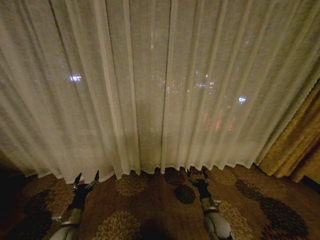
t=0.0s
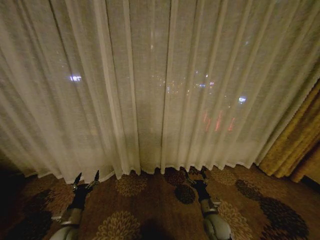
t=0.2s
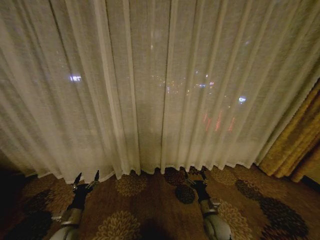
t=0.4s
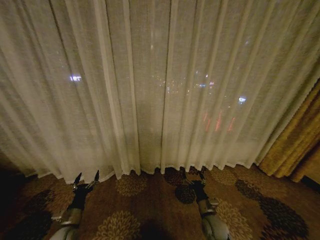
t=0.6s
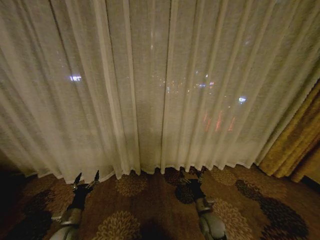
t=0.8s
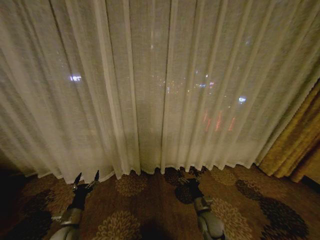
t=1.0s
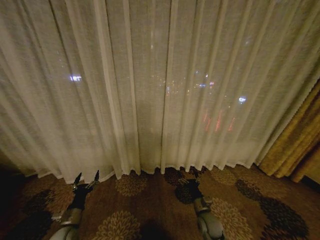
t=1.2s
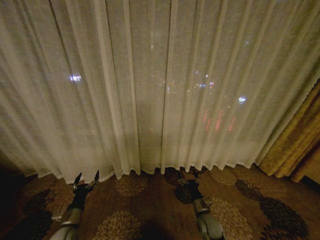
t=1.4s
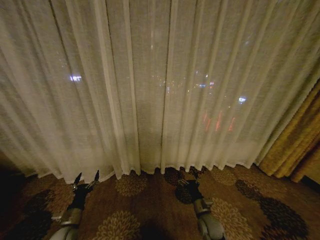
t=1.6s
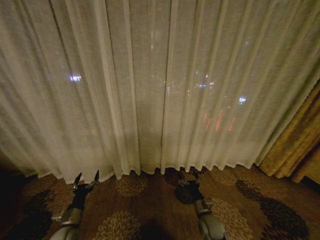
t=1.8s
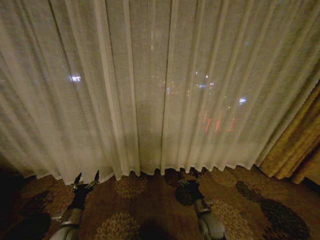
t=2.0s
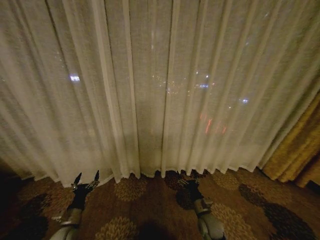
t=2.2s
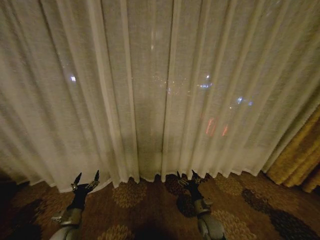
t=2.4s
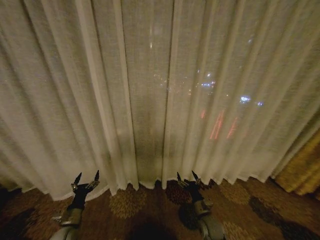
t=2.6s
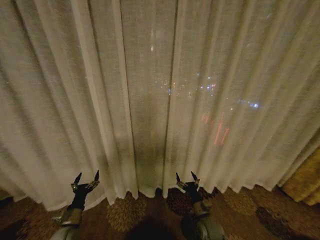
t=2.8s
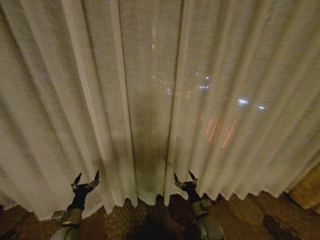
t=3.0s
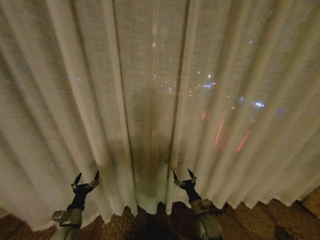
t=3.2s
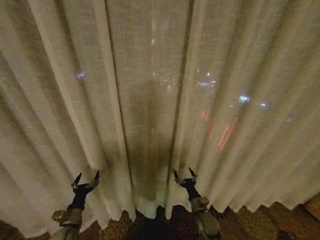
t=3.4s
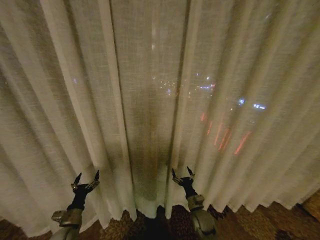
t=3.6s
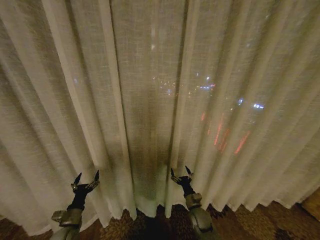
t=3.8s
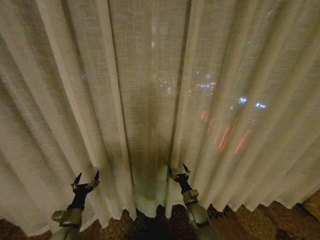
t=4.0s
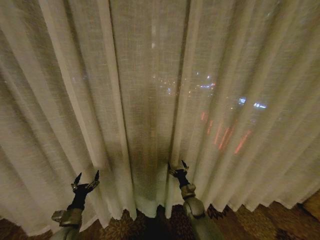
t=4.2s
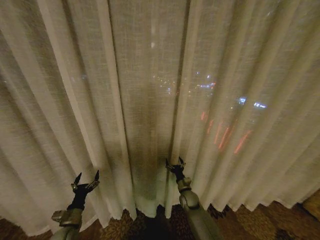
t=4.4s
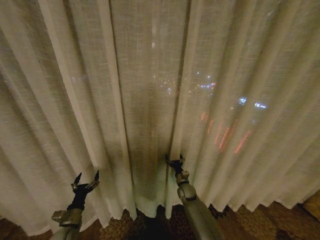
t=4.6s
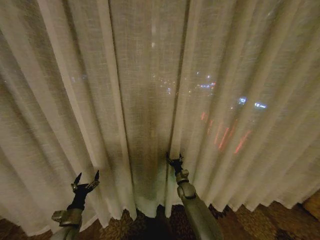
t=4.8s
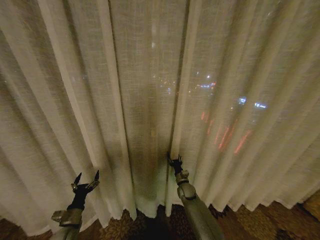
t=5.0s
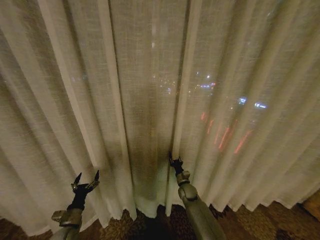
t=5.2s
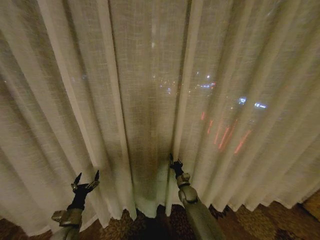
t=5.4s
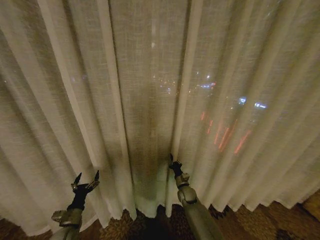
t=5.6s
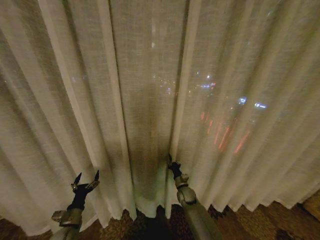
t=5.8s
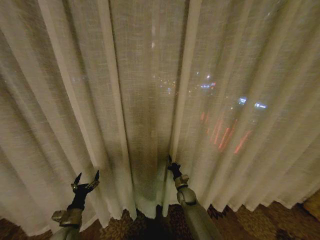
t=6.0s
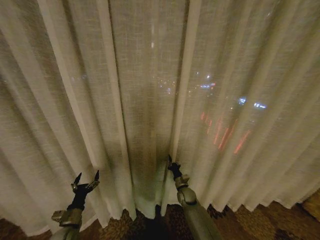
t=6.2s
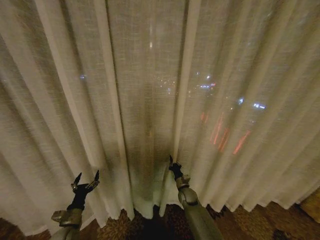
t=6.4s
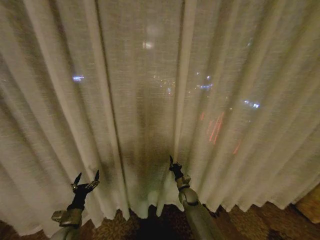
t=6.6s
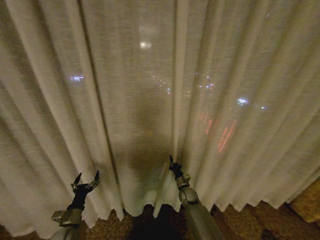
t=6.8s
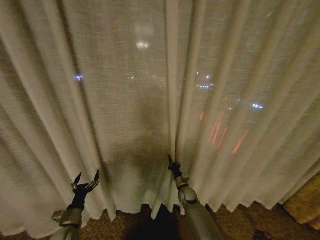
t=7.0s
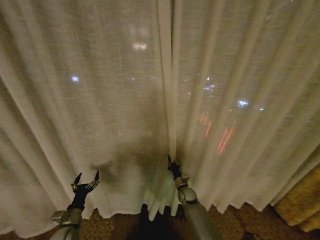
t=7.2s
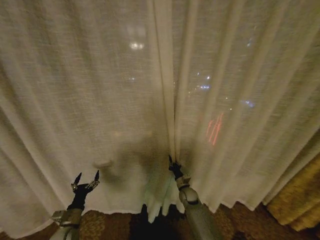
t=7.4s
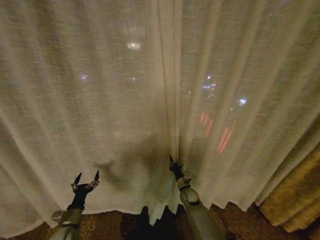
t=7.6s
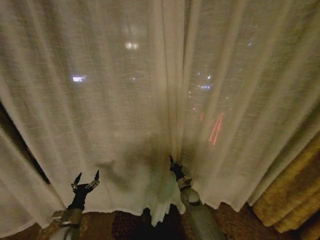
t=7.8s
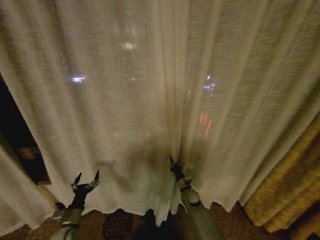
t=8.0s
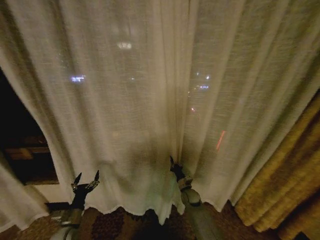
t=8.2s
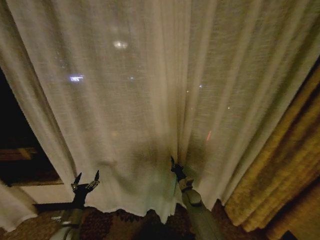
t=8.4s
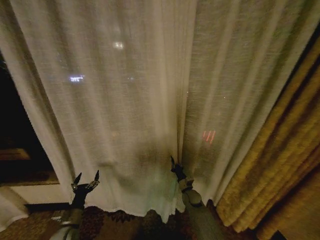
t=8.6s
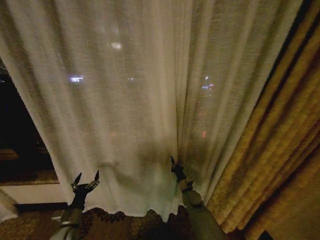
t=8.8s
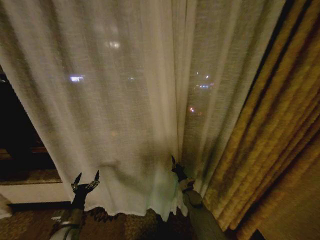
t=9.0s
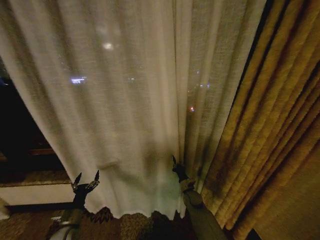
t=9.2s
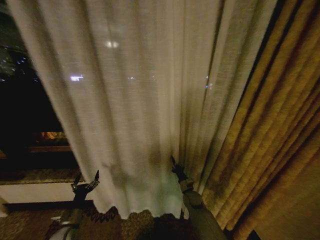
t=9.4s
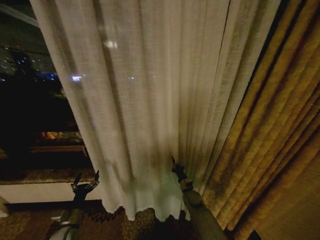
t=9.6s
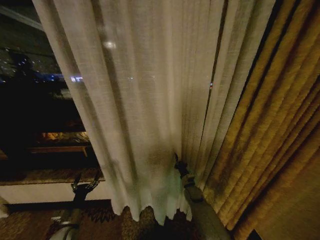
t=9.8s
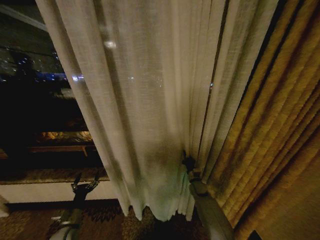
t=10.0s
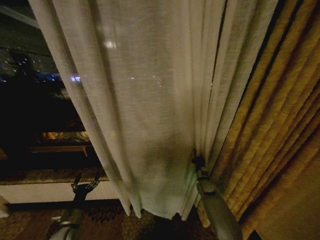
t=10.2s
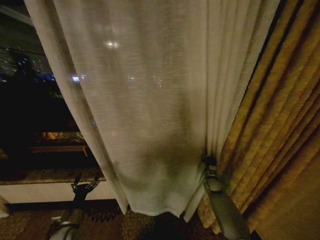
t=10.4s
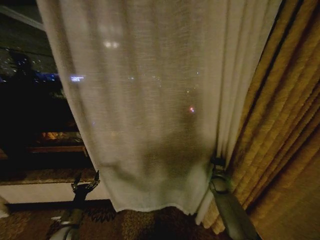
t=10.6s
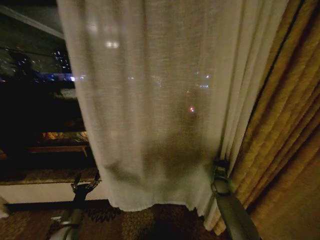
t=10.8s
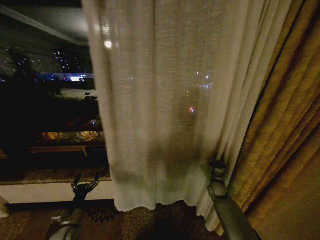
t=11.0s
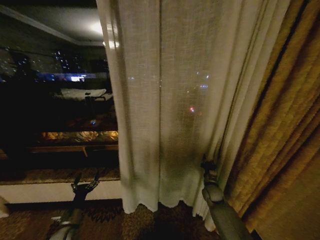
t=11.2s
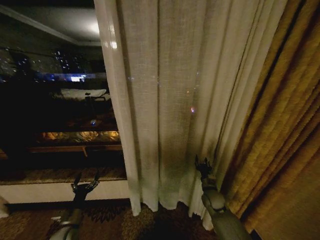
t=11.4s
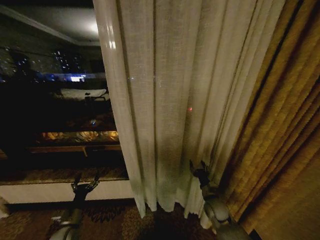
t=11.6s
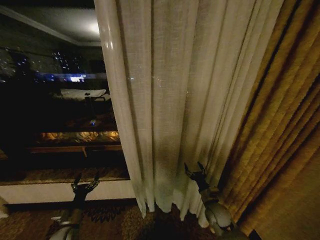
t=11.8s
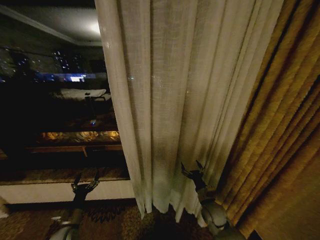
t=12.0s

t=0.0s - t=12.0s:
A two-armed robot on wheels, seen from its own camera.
Task of the whole recording: Open the curtains by pulling them apart, changing their state from closed to fully open.
t=3.0s - t=4.4s: The right gripper moves forward, about 15 cm.
t=4.4s - t=6.0s: The right gripper closes.
t=9.0s - t=10.4s: The right gripper goes about 15 cm to the right and forward.
t=10.4s - t=12.0s: The right gripper shifts some 15 cm backward and to the left, and opens up.

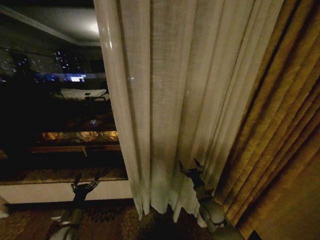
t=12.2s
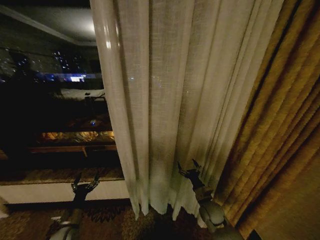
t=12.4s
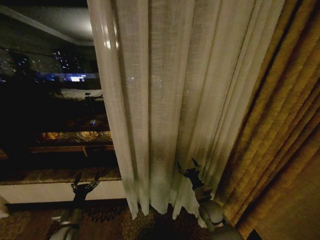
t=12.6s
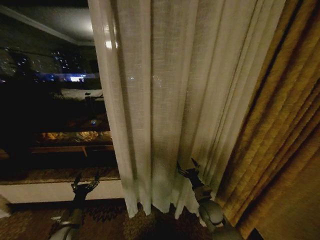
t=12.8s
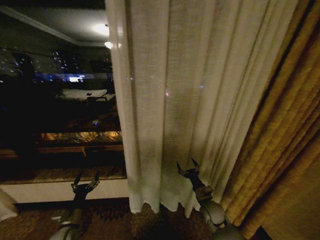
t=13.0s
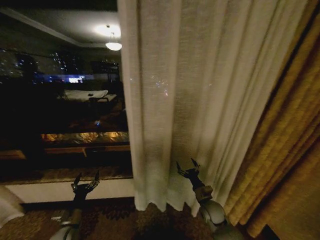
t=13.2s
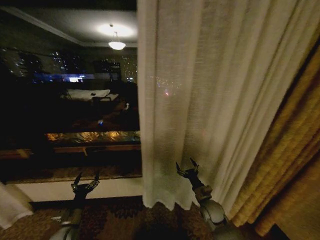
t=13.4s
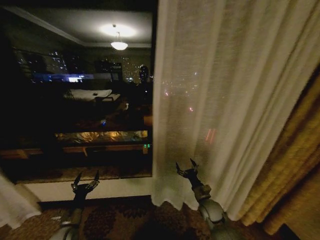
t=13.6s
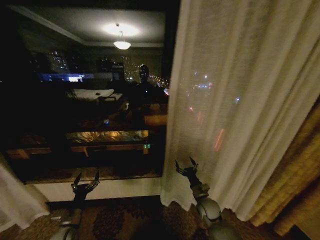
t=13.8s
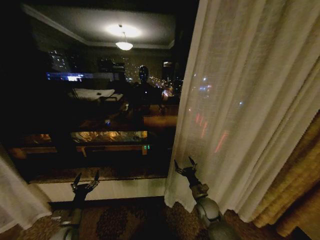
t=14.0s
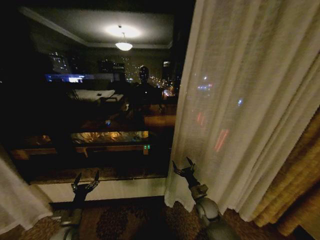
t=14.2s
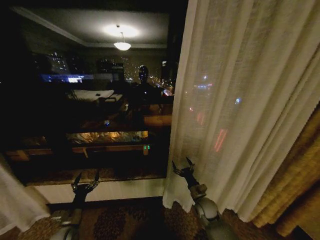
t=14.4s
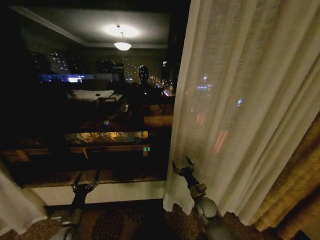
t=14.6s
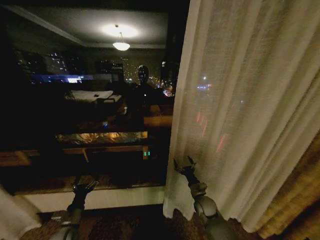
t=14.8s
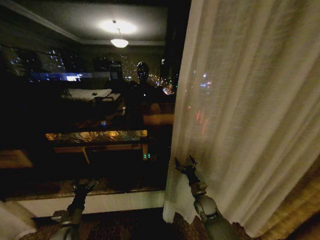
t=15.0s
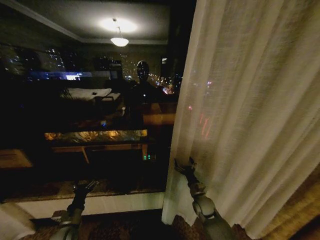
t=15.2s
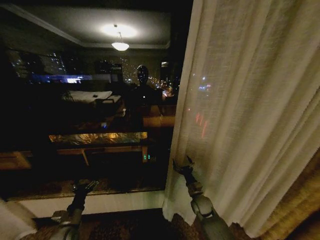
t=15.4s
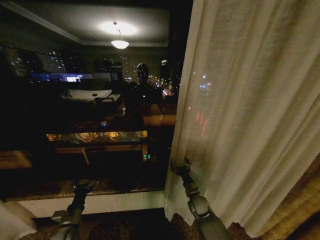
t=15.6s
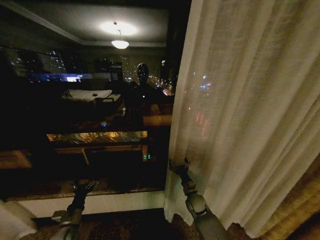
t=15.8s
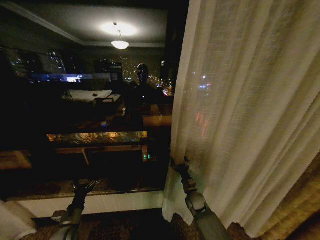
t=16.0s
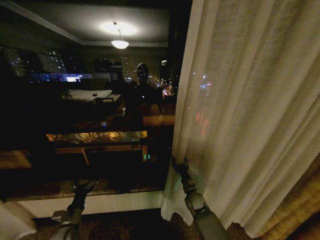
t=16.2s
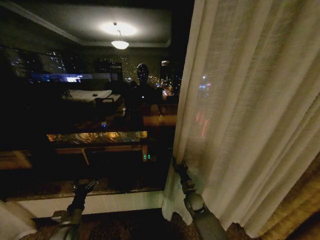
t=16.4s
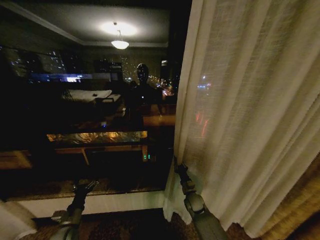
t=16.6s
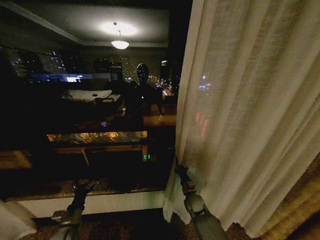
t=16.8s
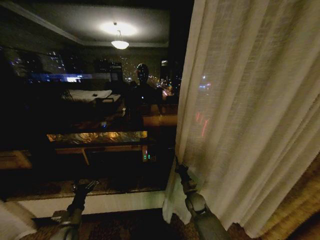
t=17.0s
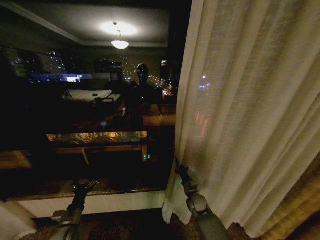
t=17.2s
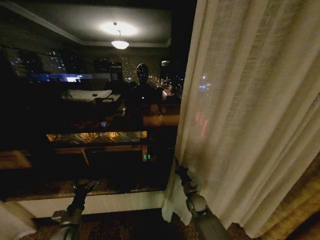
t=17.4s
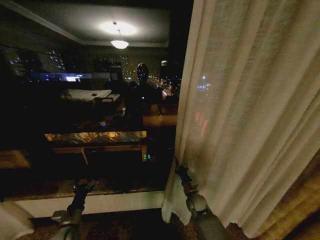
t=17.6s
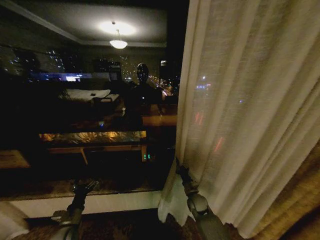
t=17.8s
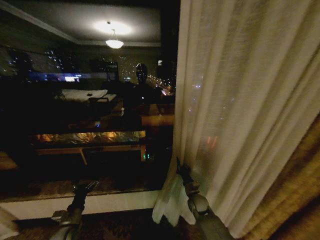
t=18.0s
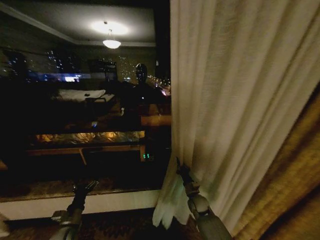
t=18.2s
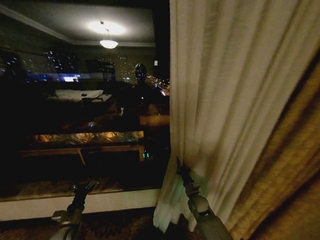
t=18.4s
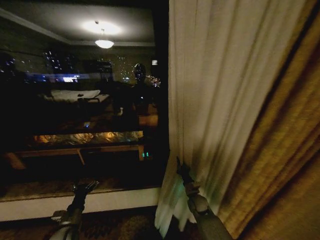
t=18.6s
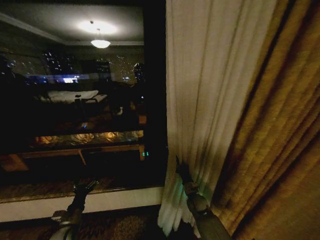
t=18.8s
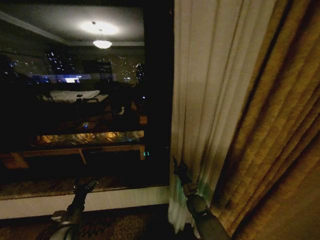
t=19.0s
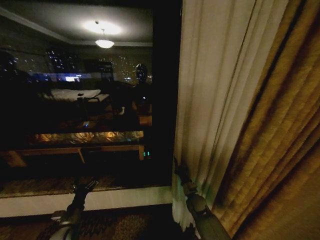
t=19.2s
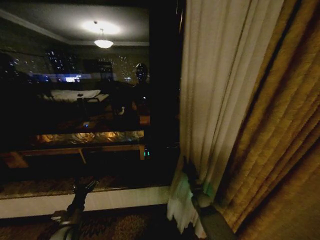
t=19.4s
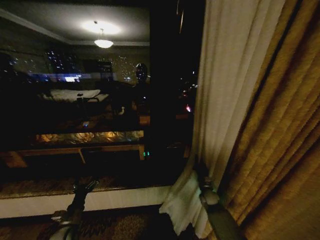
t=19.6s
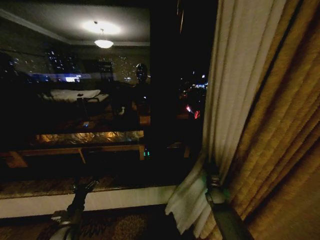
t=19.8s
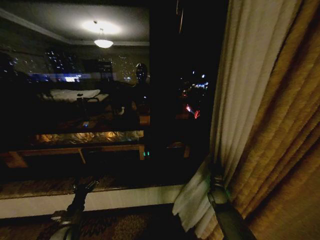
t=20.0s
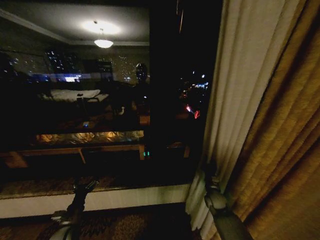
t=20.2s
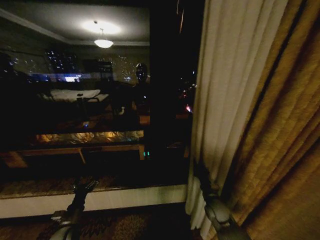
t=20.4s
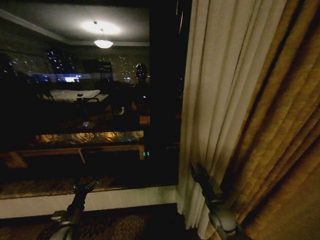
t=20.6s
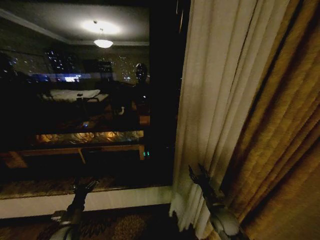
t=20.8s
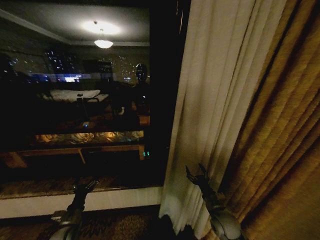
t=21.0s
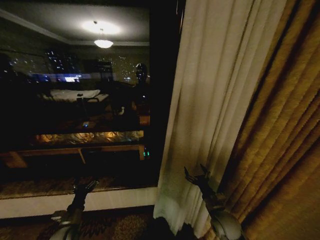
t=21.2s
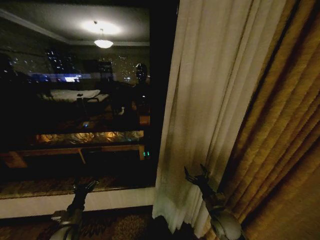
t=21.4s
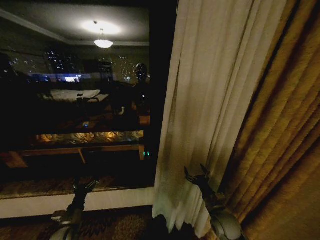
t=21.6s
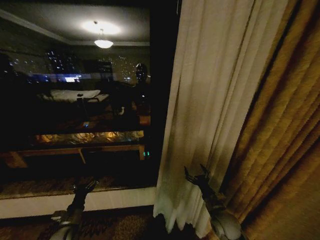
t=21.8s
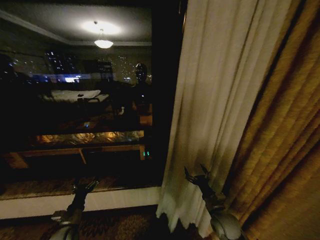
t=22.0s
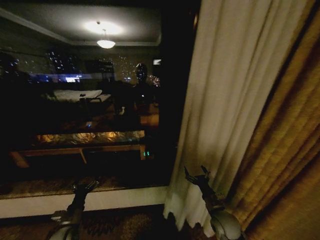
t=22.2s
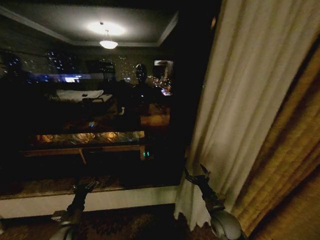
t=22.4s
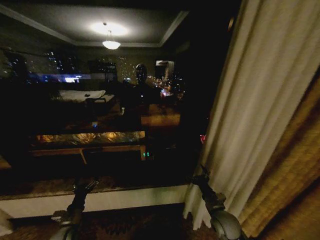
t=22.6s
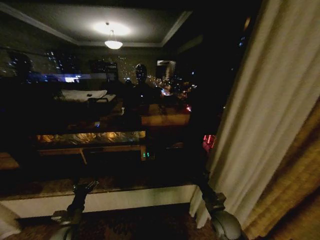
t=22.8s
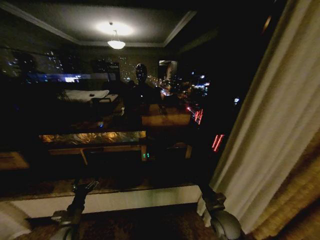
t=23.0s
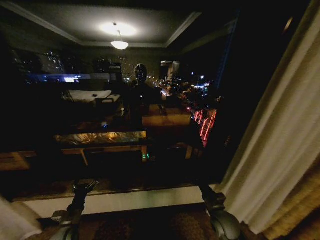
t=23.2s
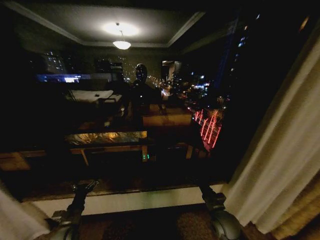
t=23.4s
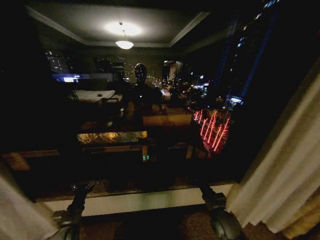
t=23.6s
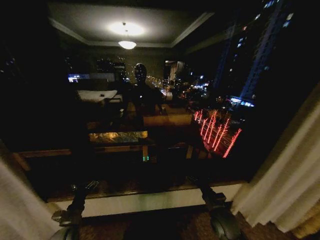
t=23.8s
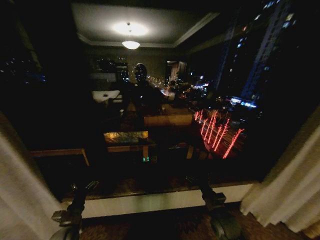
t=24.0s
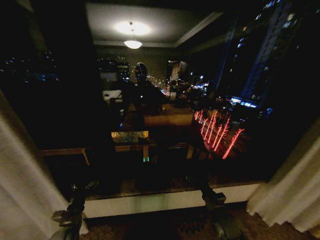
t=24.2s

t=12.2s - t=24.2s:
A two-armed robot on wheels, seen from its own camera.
Task of the whole recording: Open the curtains by pulling them apart, changing their state from closed to fully open.
t=15.2s - t=16.6s: The right gripper closes its fingers.
t=18.2s - t=19.8s: The right gripper heads to the right, covering approximately 10 cm.
t=19.8s - t=21.2s: The right gripper travels backward, upward and to the left by about 15 cm, and opens its fingers.
